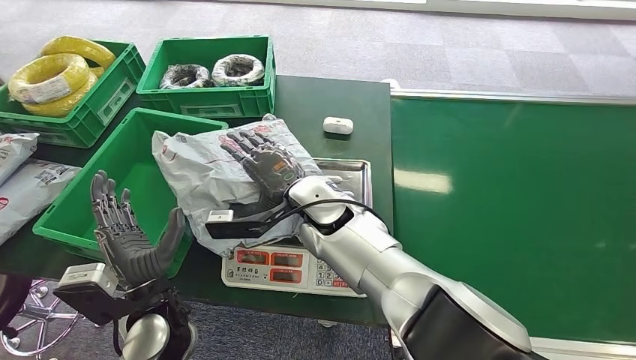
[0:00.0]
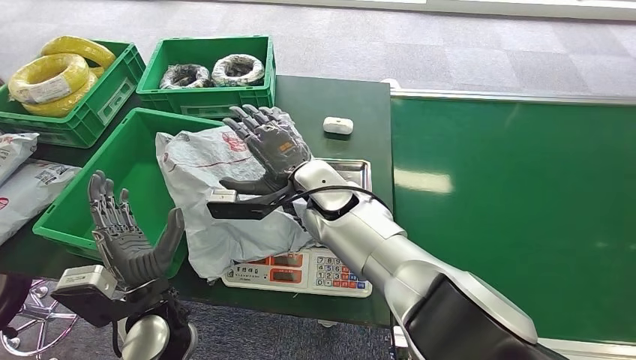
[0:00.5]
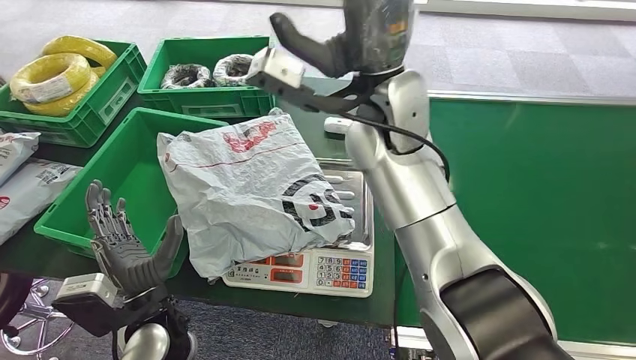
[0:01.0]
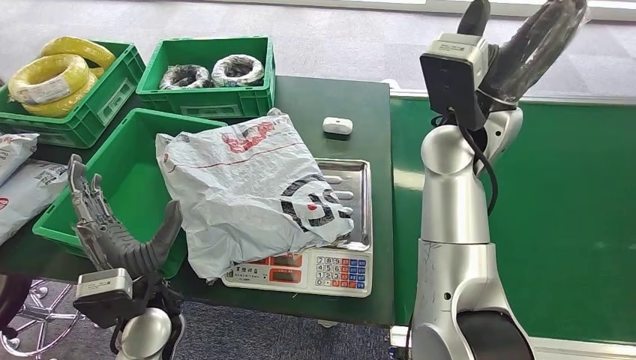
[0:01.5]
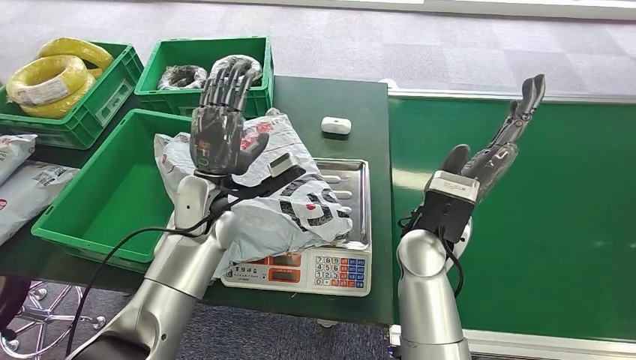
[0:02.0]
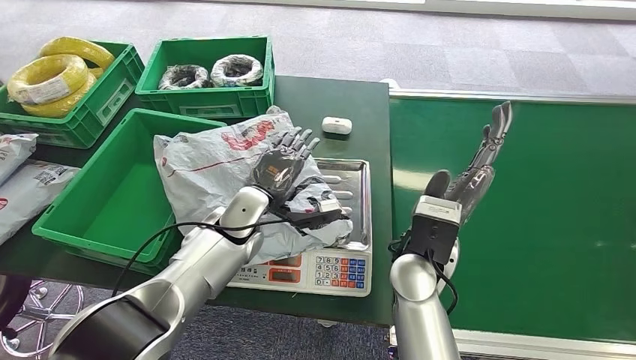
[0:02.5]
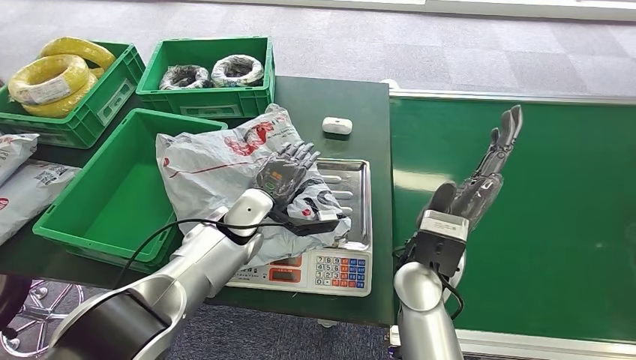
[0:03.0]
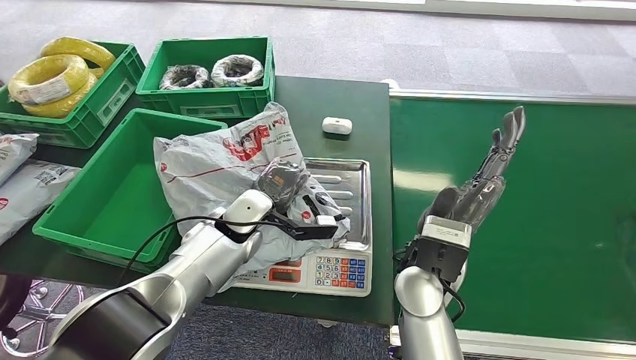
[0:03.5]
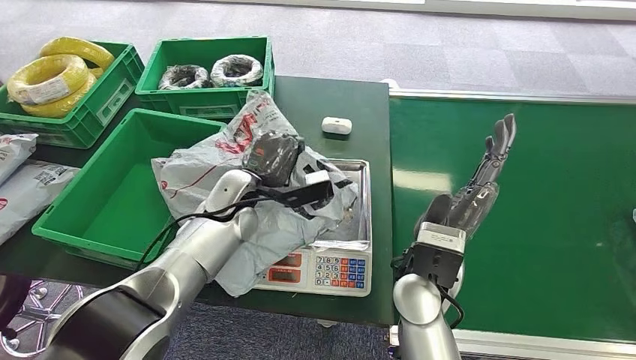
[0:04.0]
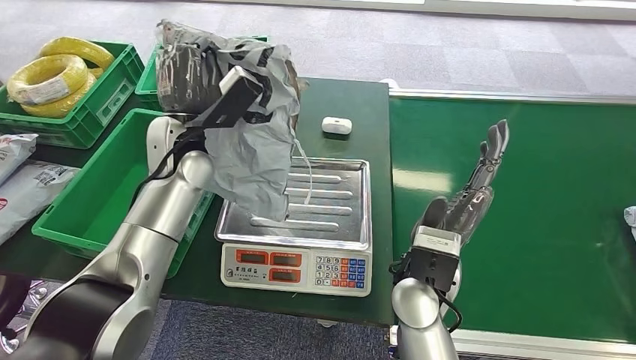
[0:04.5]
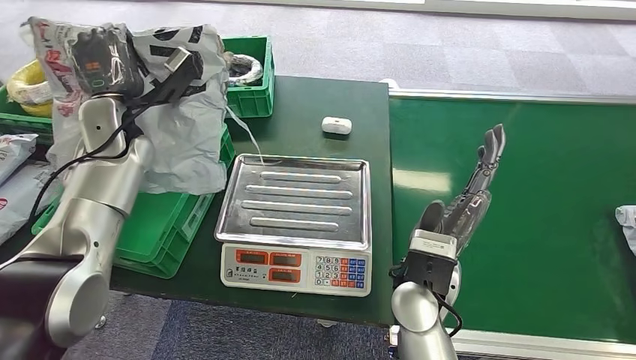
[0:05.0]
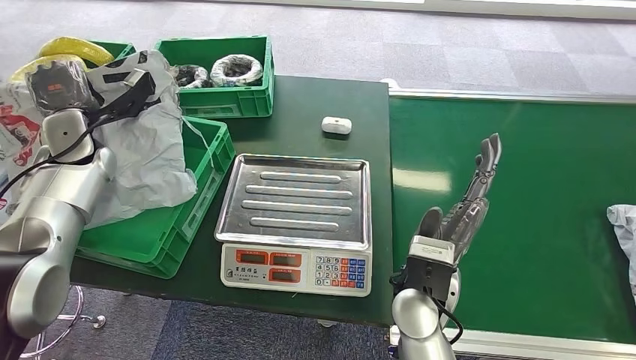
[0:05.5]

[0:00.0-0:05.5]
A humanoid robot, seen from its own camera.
Step, 0:00.5 to 0:04.5: Pick up the package from the inbound machine.
Step, 0:05.0 to 0:05.5: Place the package into the parcel locker.
